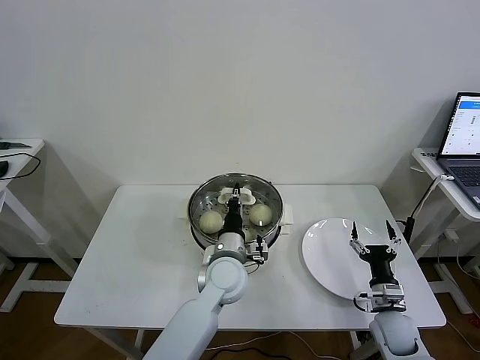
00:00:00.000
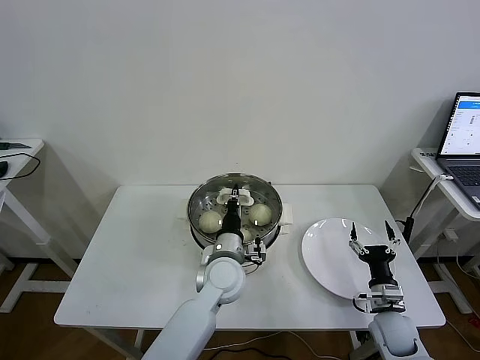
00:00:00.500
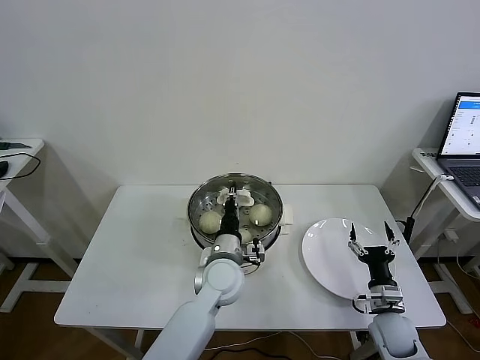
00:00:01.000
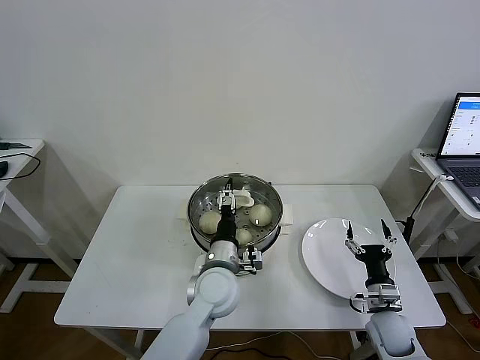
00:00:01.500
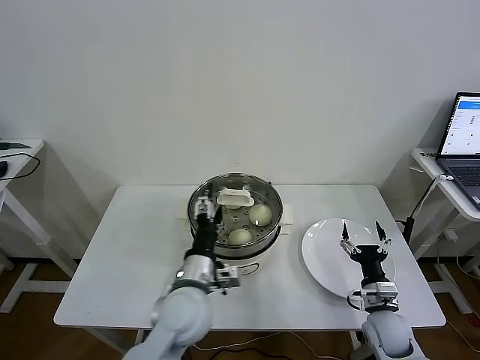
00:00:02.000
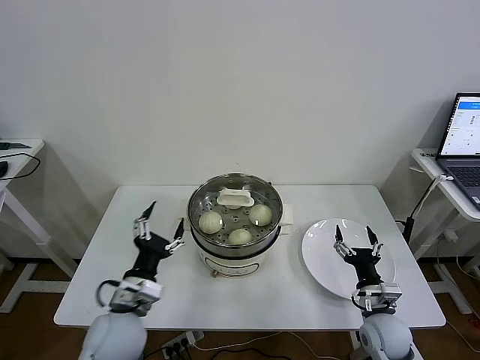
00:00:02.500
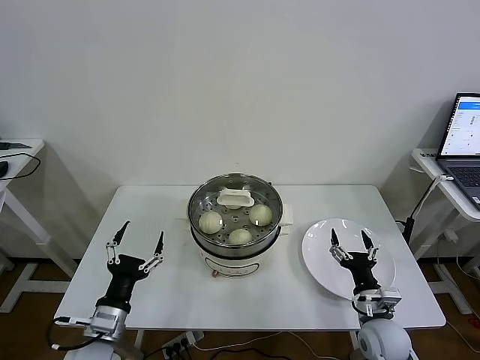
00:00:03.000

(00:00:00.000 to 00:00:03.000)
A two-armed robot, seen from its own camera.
Task of the whole recording: take steamed baozi put them in steamer then cover it.
00:00:00.000 - 00:00:01.500: The left gripper opens.
00:00:01.500 - 00:00:03.000: The left gripper travels to the left and backward by about 25 cm; the right gripper moves roughly 5 cm.
